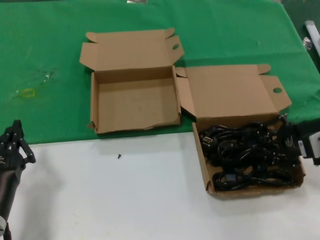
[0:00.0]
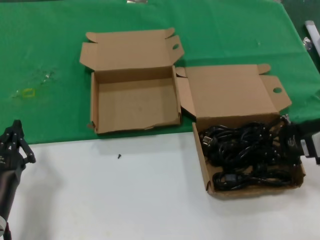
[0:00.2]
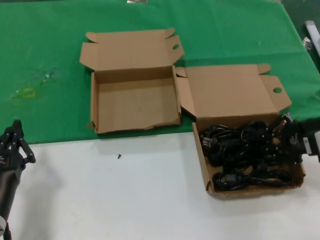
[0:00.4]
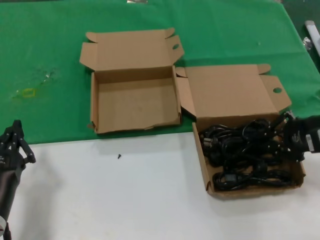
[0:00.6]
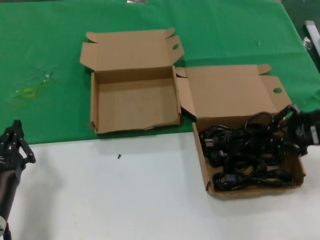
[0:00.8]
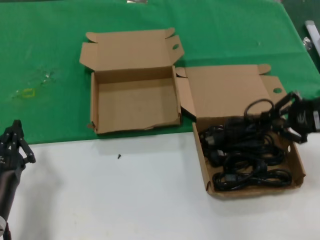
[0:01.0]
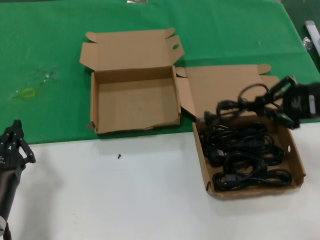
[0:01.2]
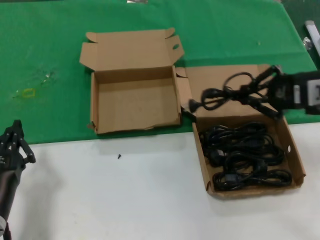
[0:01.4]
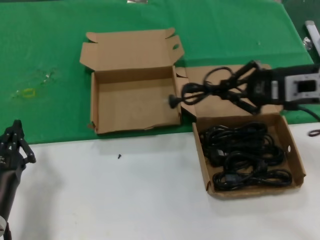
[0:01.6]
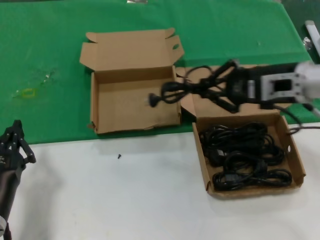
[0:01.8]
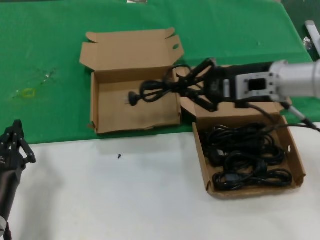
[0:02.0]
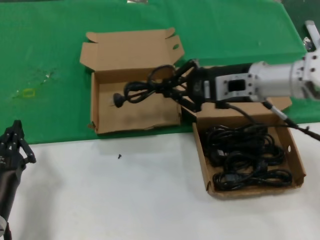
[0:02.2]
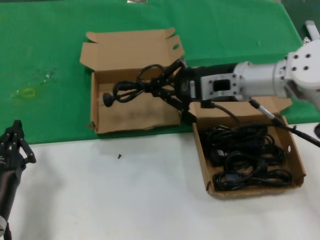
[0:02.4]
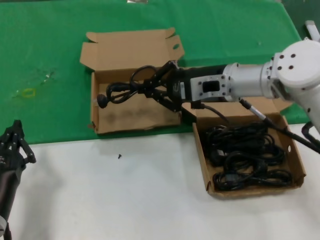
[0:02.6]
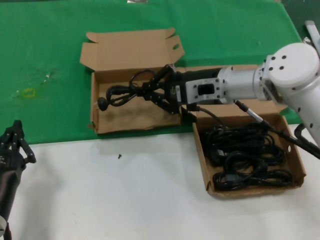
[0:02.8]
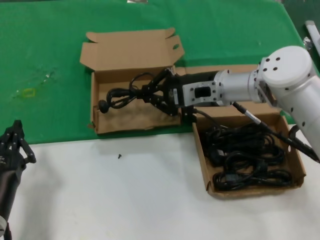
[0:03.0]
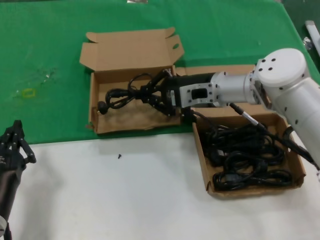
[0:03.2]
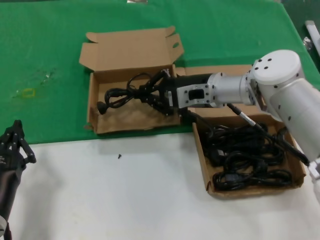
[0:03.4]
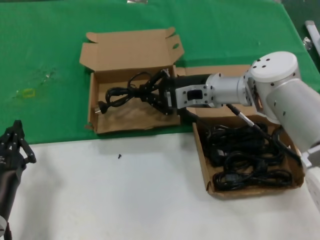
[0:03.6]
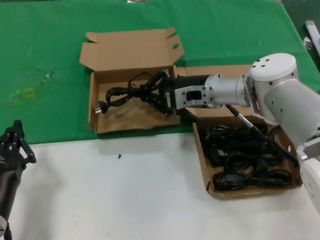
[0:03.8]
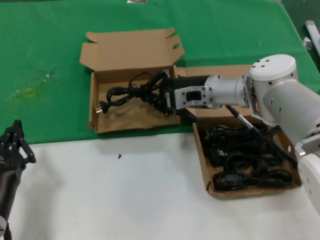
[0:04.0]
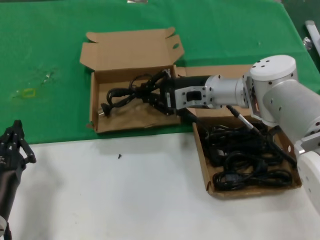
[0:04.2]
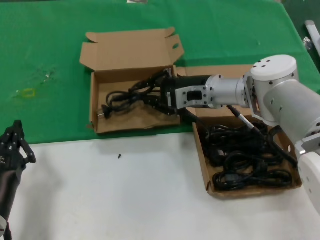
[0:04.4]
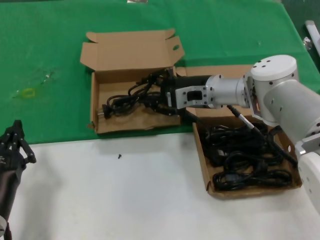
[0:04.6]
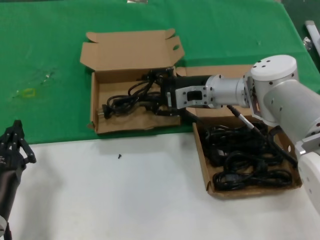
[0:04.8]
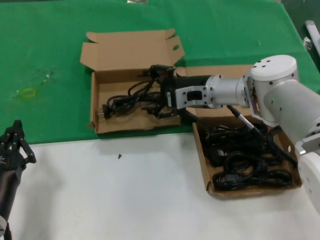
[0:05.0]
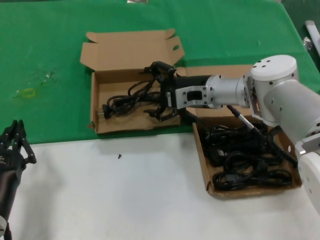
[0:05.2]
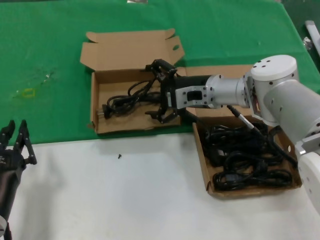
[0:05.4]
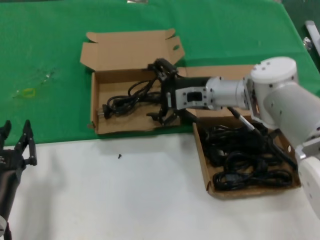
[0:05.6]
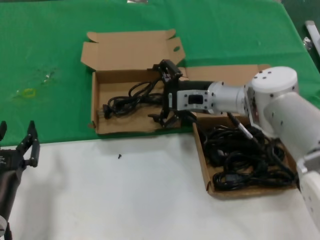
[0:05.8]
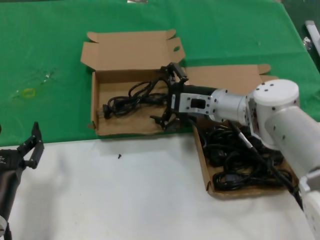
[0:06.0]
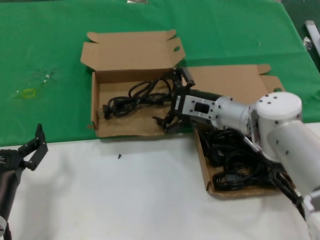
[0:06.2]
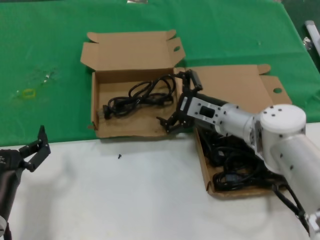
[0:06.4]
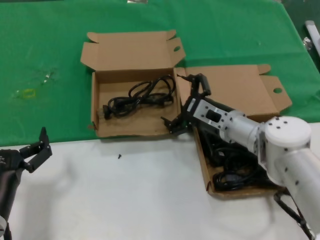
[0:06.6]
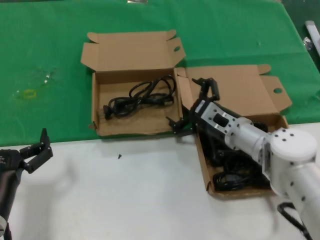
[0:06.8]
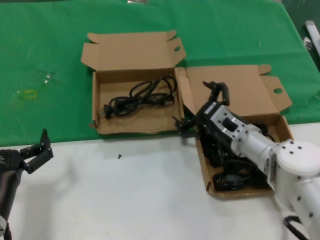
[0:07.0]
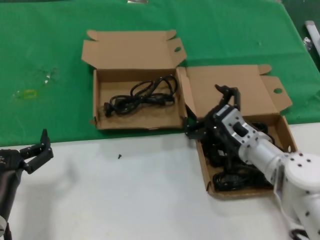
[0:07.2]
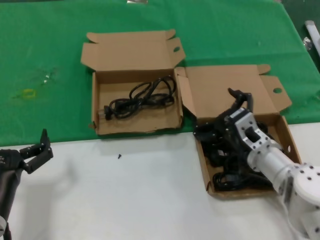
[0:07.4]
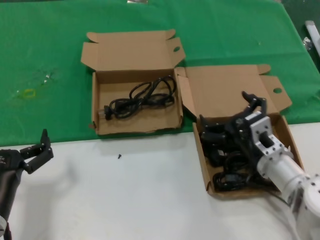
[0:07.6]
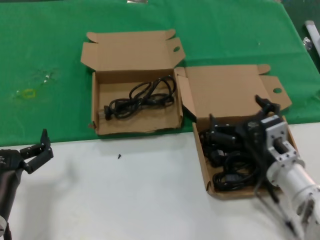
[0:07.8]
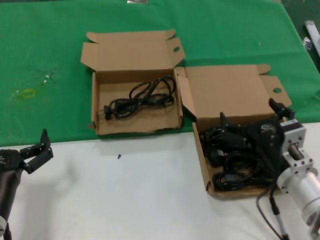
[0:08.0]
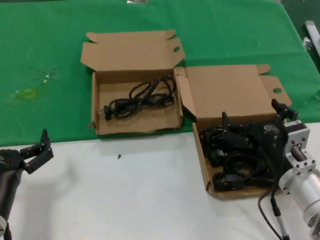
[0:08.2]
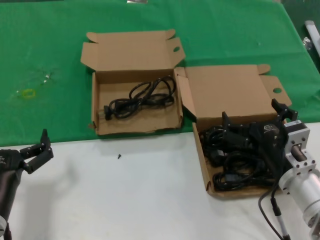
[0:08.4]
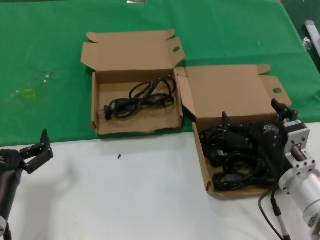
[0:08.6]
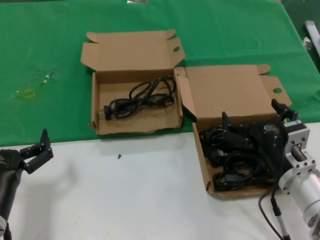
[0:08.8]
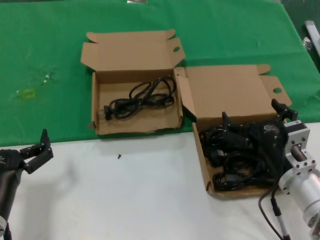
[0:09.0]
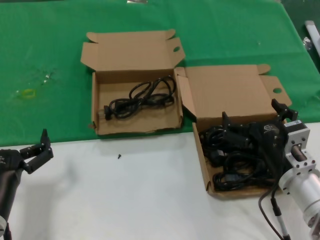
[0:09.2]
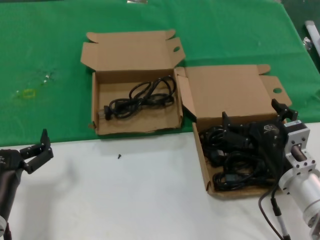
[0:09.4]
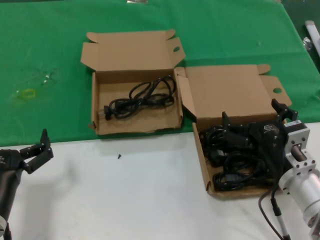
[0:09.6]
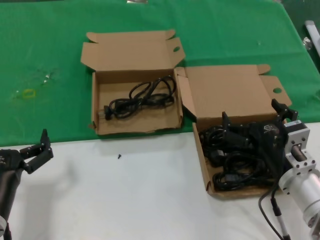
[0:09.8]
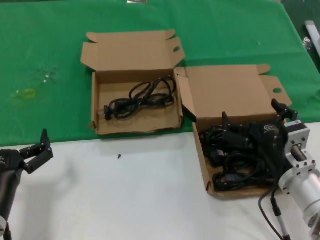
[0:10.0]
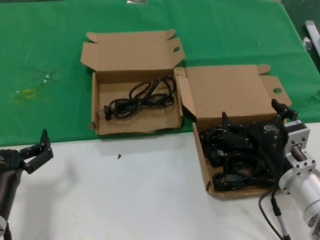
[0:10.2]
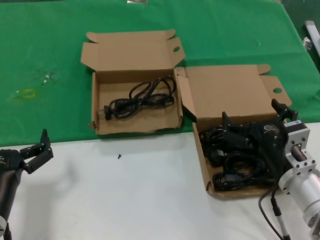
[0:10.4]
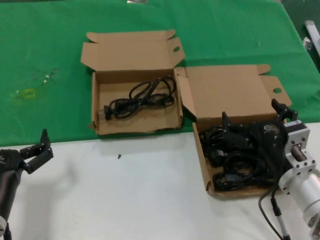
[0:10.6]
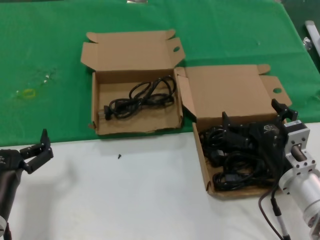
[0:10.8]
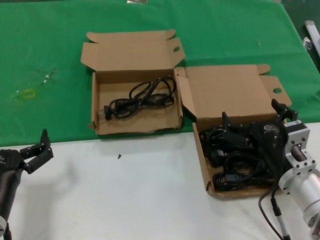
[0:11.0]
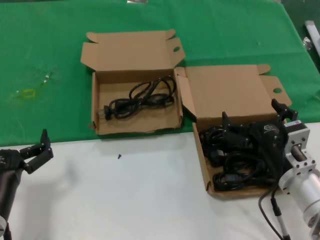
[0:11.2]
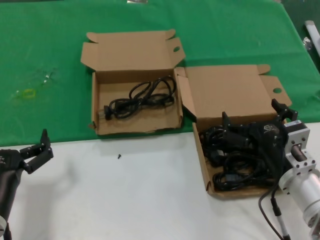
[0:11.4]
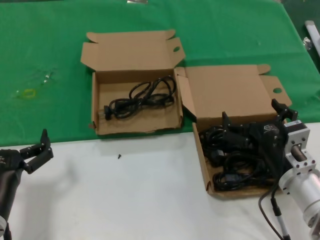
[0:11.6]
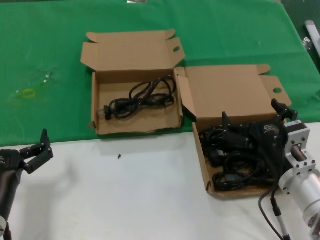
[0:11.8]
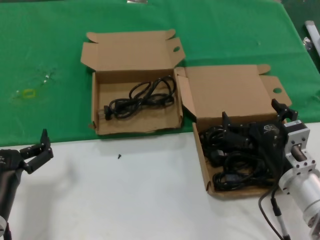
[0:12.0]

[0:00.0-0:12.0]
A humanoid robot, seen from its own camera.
Task of the whole recording: take the parts from the box containing them and put them into an empty box.
Step, 0:00.4 to 0:05.0: Place the data cable in the another box.
0:00.0 to 0:01.6: The right hand travels upward by roughly 5 cm.
0:01.6 to 0:03.0: The right hand shifts about 20 cm to the left and forward.
0:03.0 to 0:04.4: There are only small adjustments of the hands.
0:04.4 to 0:06.0: The hands move only a little.
0:06.0 to 0:07.6: The right hand moves backward and downward, roughly 15 cm.
0:07.6 to 0:09.0: The right hand travels backward by approximately 5 cm.
0:09.0 to 0:12.0: Both hands stay put.

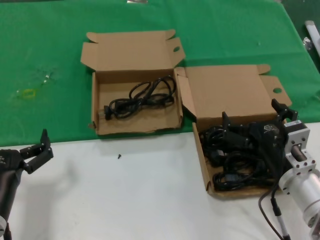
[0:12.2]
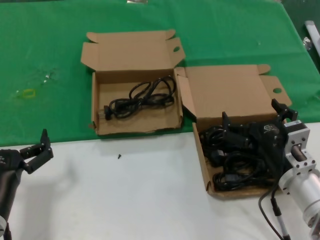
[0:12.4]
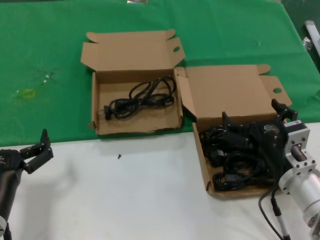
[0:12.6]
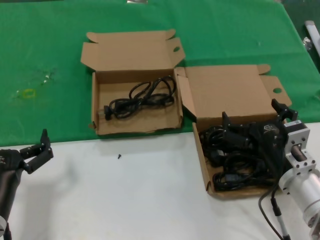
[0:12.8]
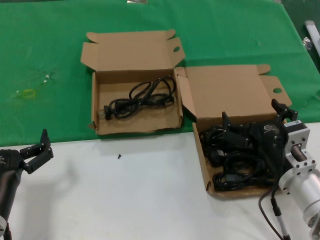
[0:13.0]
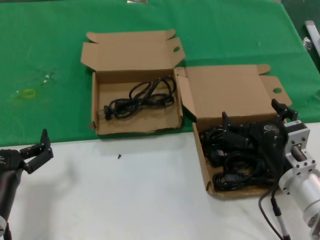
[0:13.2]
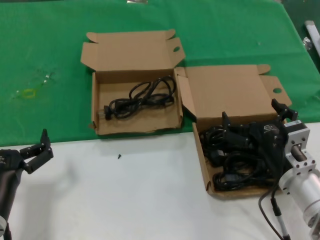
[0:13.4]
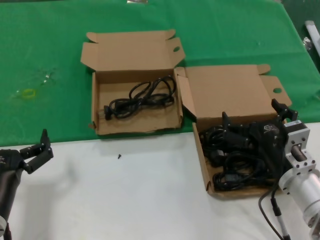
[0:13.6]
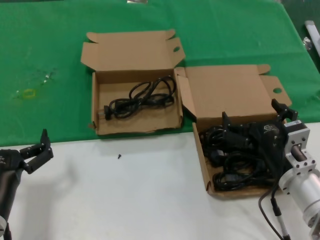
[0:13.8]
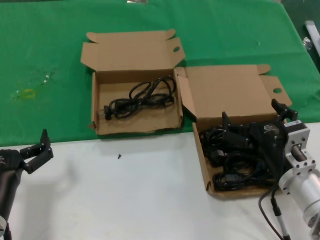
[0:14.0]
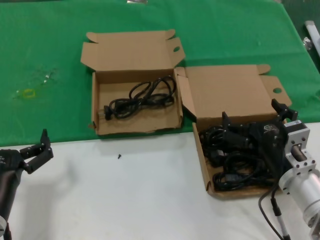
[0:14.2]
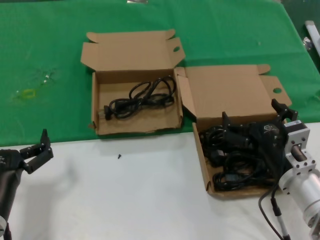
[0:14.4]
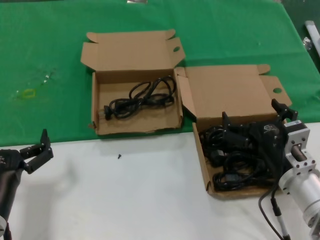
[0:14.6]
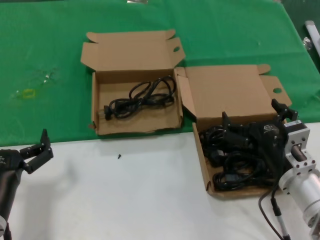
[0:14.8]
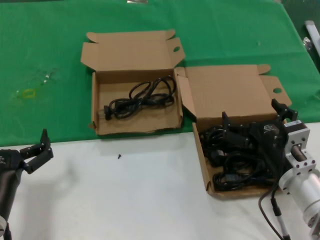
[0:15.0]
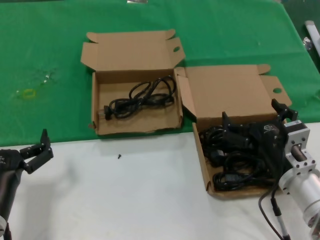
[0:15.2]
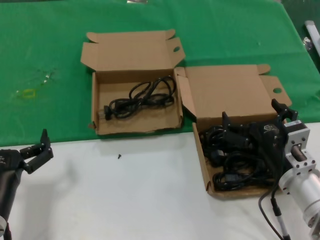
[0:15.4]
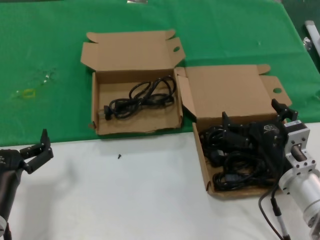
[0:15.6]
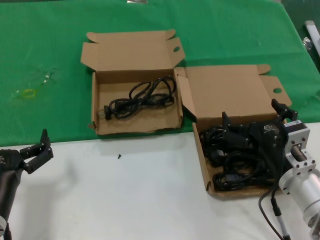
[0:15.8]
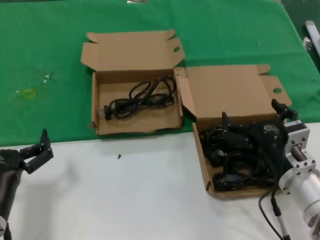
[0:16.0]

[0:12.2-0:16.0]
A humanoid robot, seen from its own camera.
Task of the whole recording: take the parts from the box containing them and put them into an empty box.
0:12.2 to 0:16.0: Neither hand changes place.
